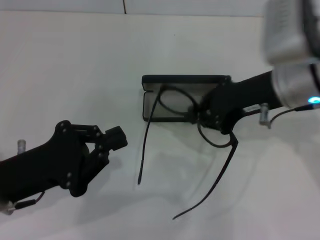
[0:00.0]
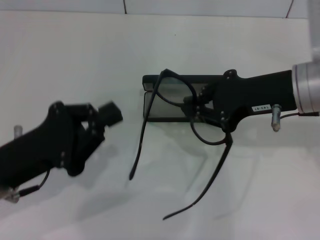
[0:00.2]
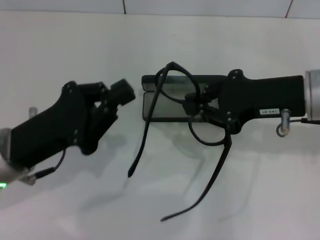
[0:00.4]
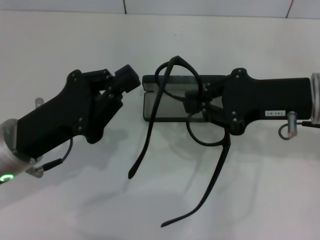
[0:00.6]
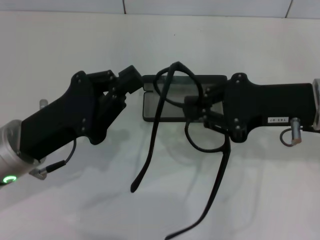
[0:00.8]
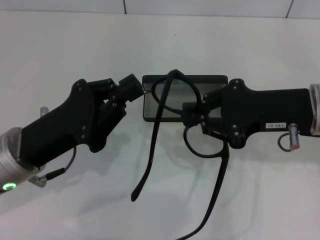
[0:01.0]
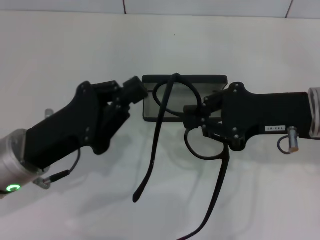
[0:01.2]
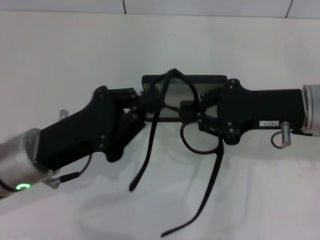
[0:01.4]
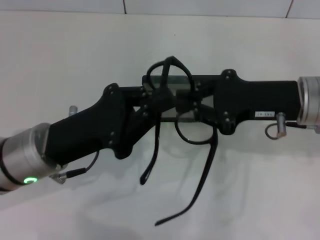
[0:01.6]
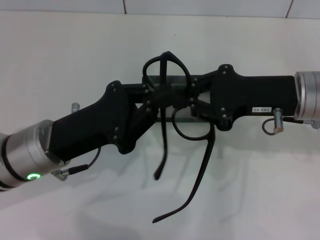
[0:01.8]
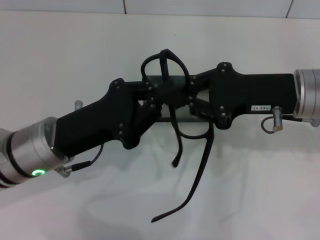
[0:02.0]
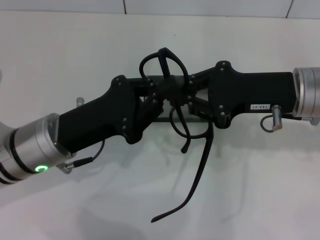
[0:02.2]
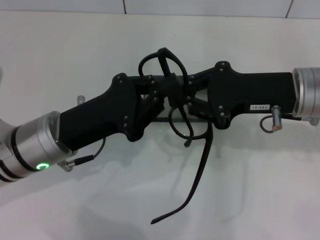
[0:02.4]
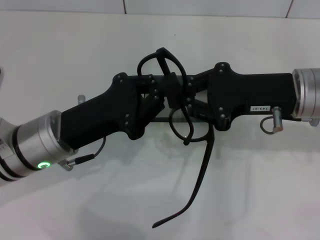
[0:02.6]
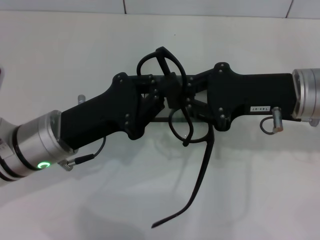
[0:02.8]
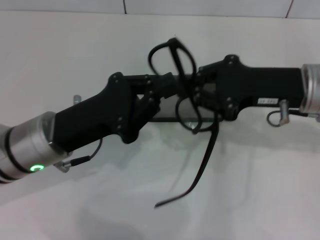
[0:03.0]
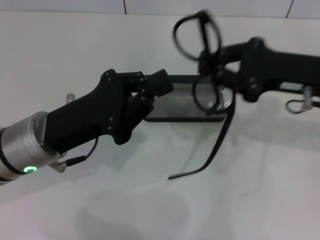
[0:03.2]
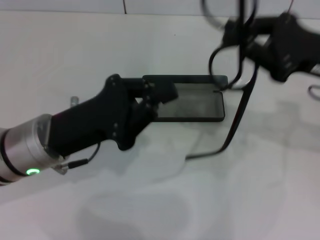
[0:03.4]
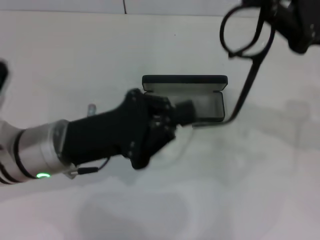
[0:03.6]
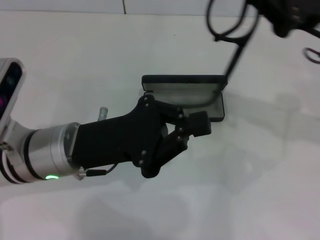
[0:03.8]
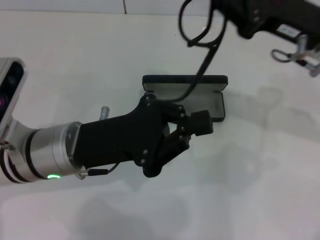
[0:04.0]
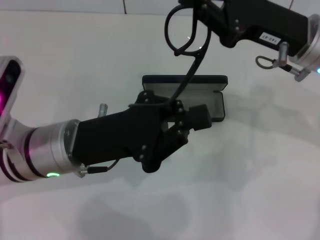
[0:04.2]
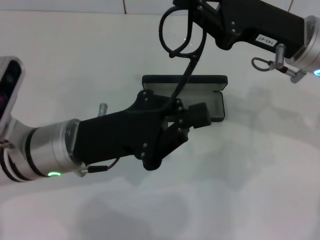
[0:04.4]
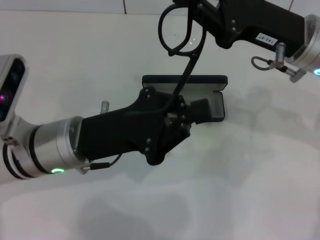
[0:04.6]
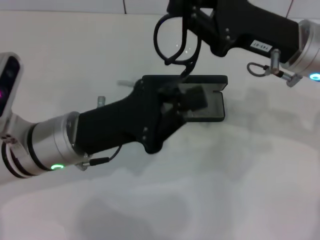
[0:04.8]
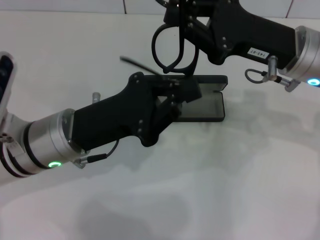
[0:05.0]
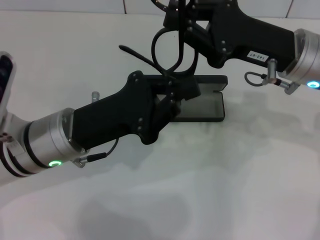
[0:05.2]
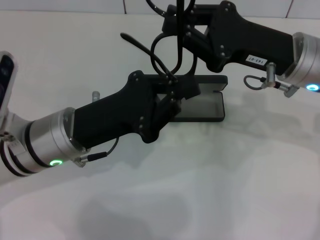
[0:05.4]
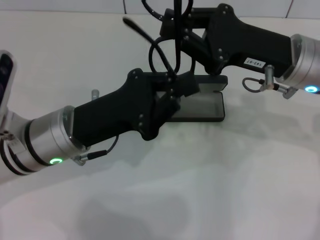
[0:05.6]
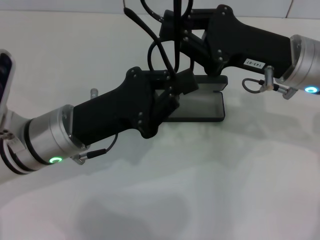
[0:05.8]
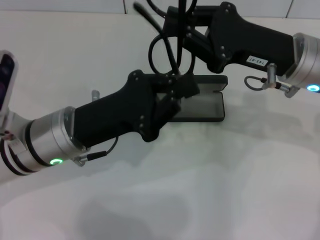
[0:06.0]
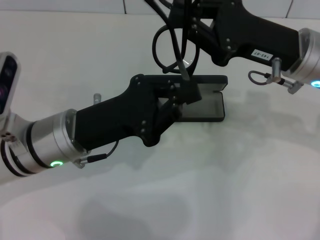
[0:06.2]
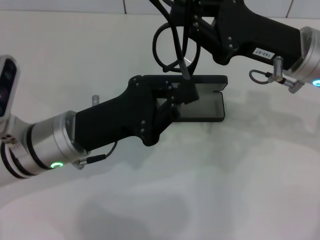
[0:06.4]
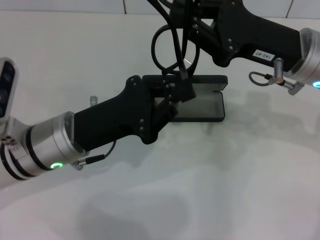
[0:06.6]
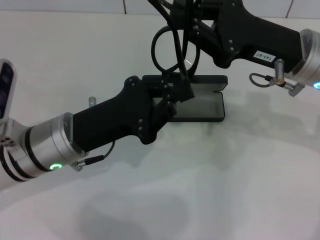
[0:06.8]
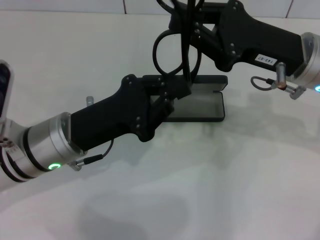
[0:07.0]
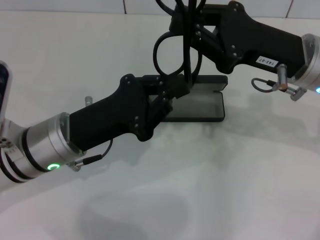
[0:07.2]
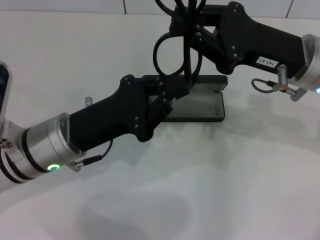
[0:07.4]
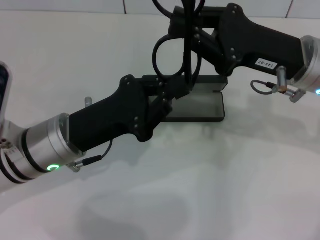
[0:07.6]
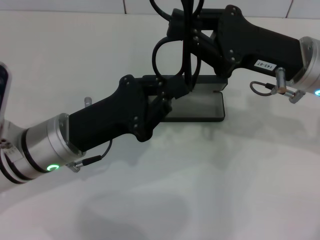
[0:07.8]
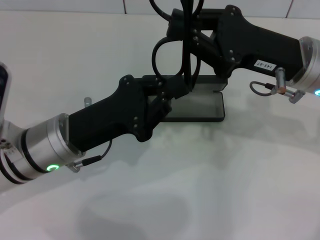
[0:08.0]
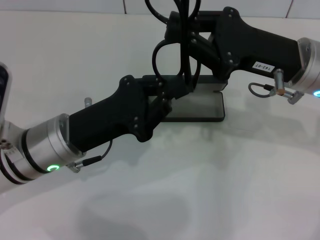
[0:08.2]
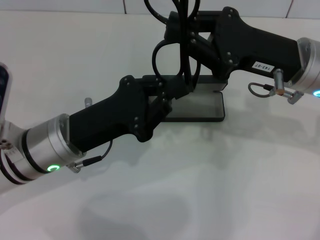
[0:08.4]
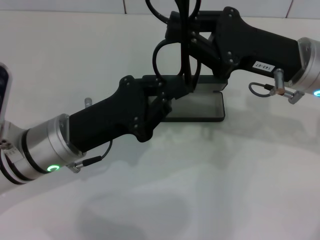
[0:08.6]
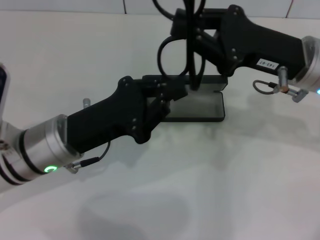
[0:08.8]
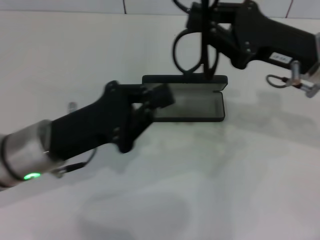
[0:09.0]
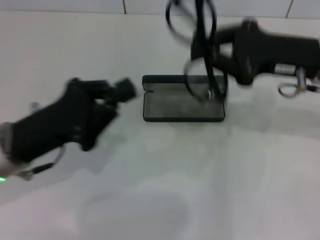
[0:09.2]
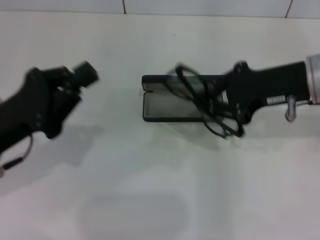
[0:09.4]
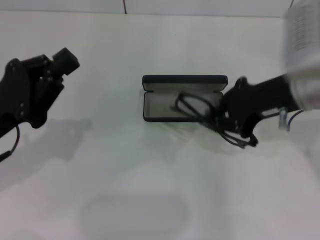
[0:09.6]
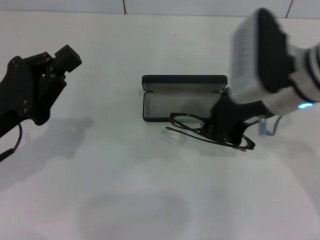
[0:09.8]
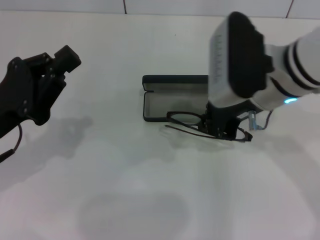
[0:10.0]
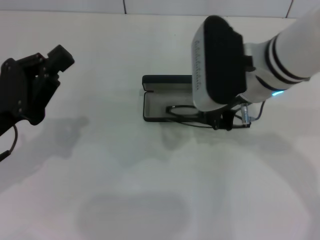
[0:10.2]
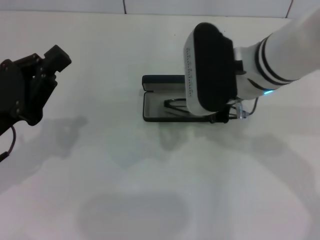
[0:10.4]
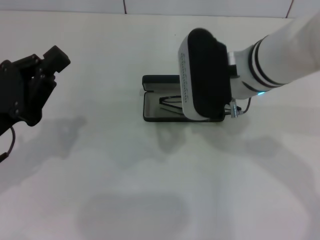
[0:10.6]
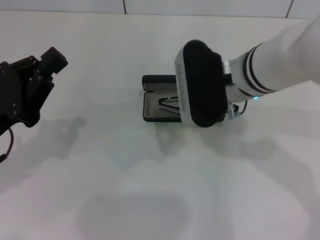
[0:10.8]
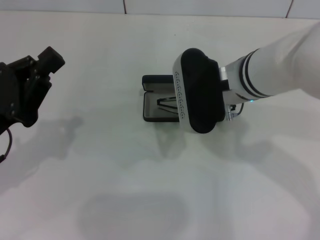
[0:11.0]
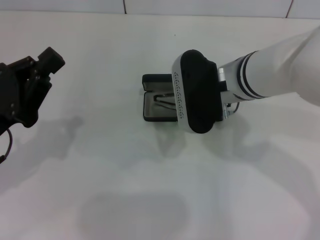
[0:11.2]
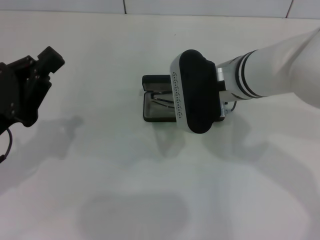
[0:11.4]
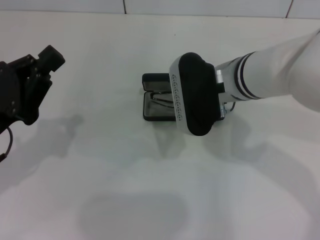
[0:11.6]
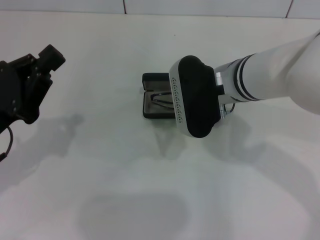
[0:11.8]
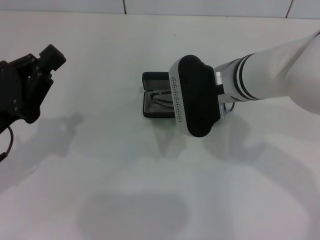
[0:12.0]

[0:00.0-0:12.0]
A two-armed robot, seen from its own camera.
Step, 0:00.0 to 0:08.6: Fold the frame with your left hand.
0:00.0 to 0:01.6: The left gripper is displaced to the right by approximately 5 cm. Meanwhile the right gripper moves some 5 cm.
0:01.6 to 0:03.0: The grippers move only a little.
0:06.0 to 0:07.6: Neither gripper changes place.
0:07.6 to 0:09.0: The grippers stay close to where they were, moving slightly.
0:09.0 to 0:10.4: Both grippers move to the left, about 10 cm.
0:10.4 to 0:12.0: The grippers make only small movements.

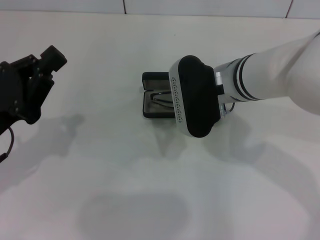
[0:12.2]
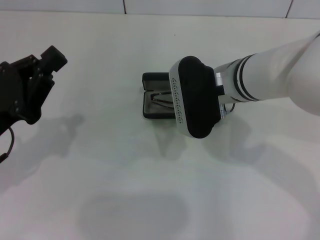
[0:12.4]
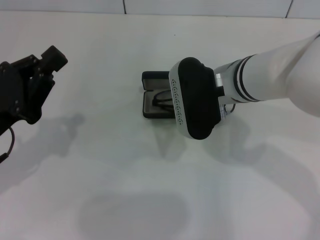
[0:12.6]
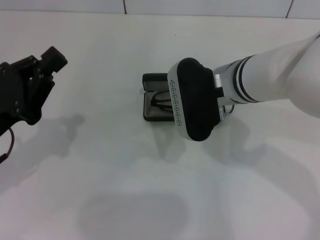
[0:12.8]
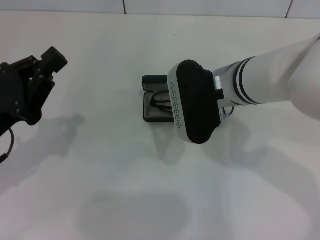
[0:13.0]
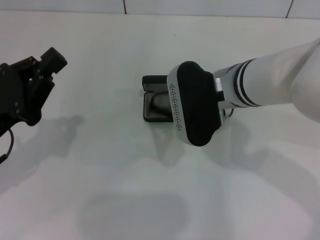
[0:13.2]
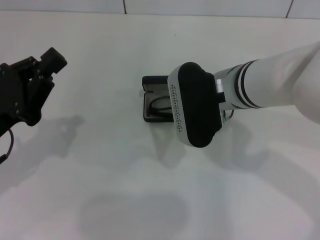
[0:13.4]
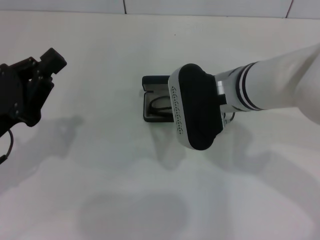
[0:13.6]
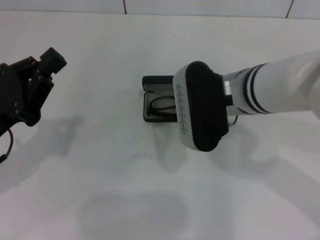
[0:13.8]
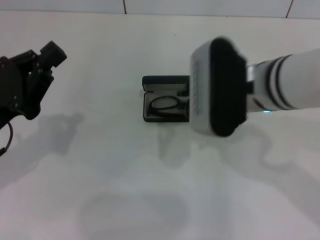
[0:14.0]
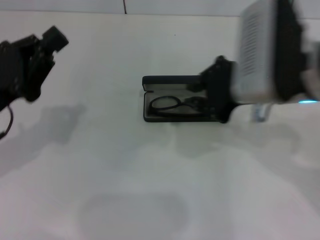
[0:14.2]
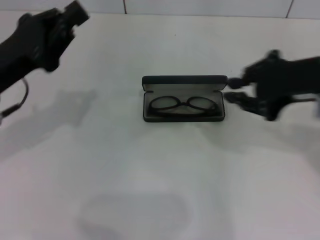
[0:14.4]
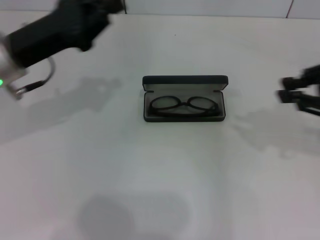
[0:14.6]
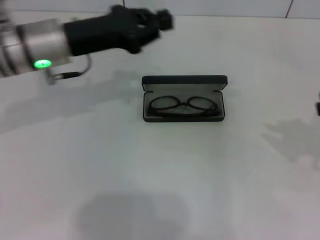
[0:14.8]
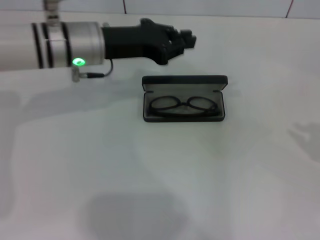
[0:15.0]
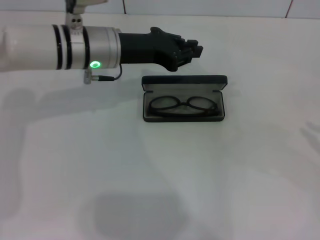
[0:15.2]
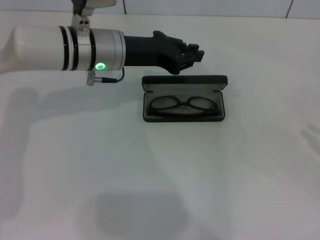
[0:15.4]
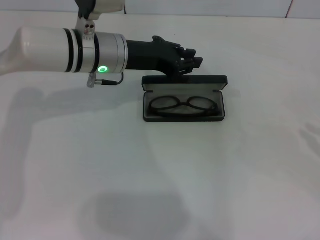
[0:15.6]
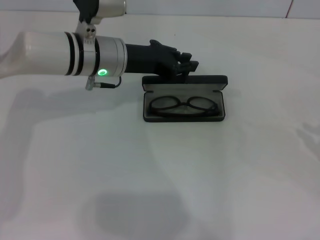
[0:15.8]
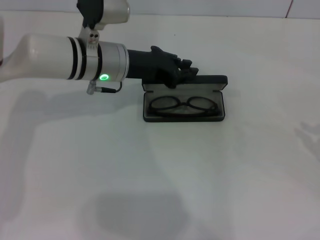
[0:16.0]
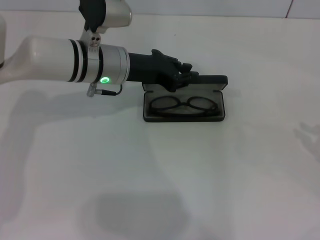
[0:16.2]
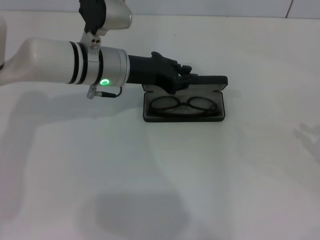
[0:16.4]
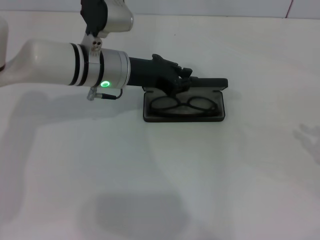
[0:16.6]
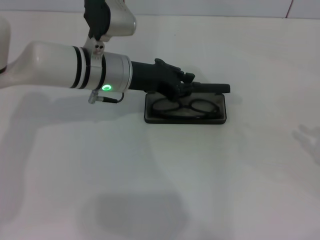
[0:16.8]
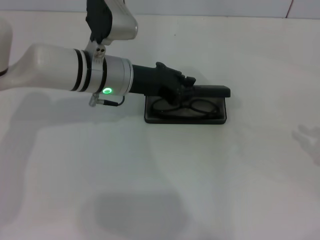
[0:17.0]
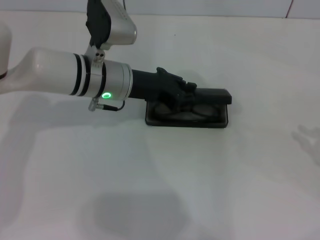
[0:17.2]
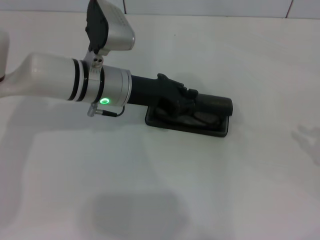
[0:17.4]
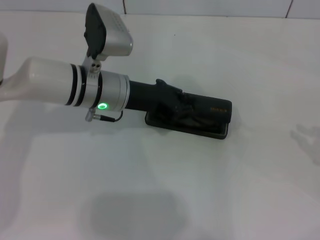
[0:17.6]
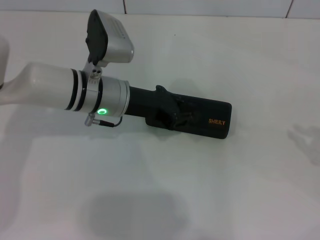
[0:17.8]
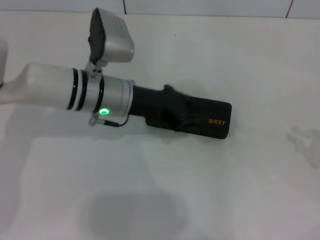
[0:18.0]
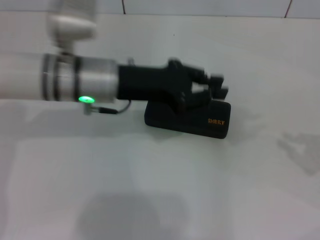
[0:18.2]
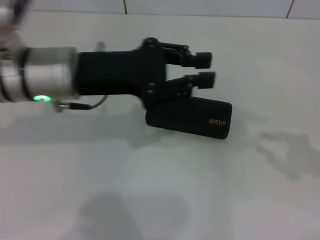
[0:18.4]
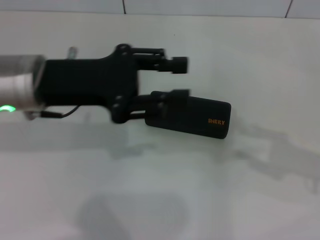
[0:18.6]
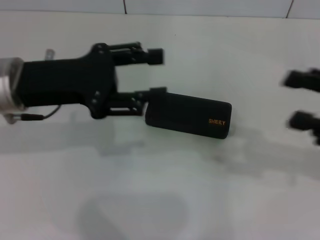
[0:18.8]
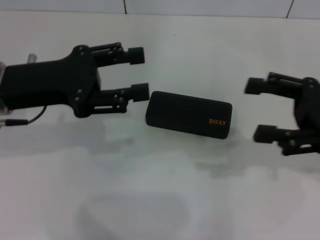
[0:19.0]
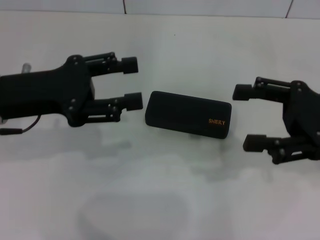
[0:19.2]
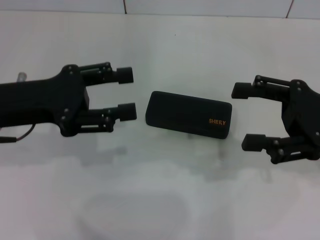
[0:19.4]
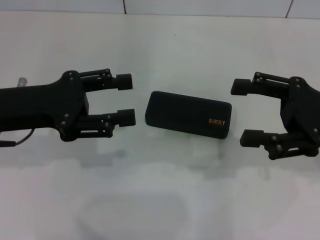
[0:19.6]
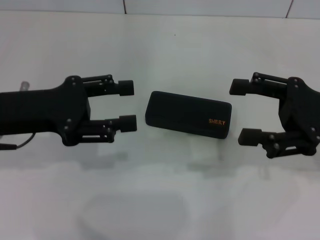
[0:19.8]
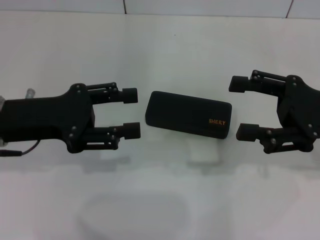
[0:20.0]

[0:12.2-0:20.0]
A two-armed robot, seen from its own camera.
Step, 0:12.8 to 0:17.8: Close the glasses case with your left hand.
0:12.2 to 0:13.8: The grippers make only small movements.
0:13.8 to 0:15.4: The left gripper moves forward and to the right, roughly 25 cm; the right gripper travels to the right by approximately 35 cm.
0:15.4 to 0:16.8: The grippers make only small movements.
0:16.8 to 0:18.4: The left gripper moves backward, upward and to the left, about 10 cm.
0:18.4 to 0:20.0: The left gripper is displaced to the left by about 10 cm, and opens up. The right gripper heads to the left and forward, covering roughly 10 cm, and opens its fingers.
